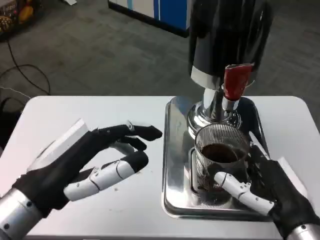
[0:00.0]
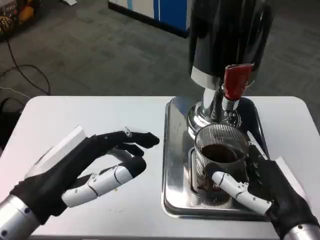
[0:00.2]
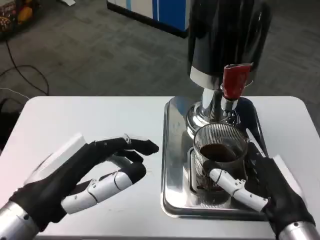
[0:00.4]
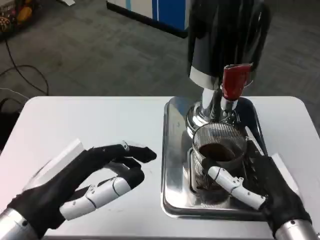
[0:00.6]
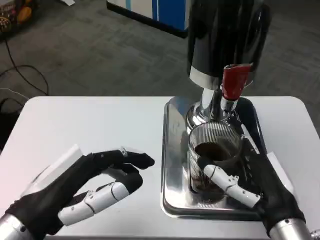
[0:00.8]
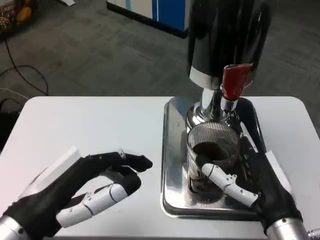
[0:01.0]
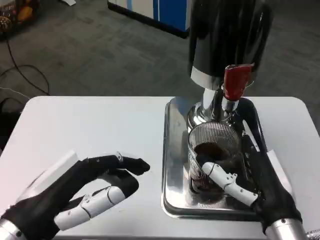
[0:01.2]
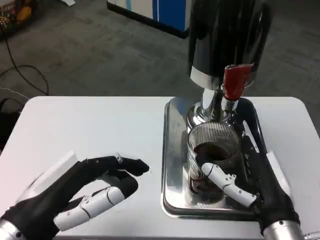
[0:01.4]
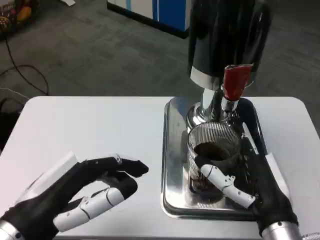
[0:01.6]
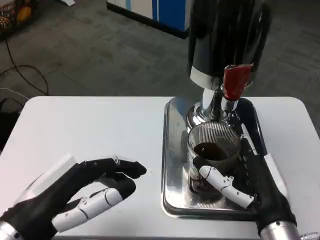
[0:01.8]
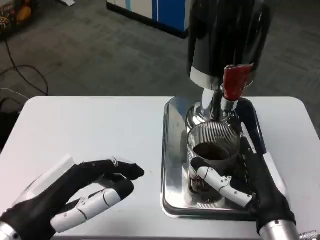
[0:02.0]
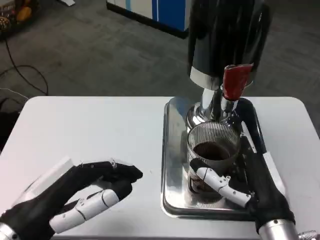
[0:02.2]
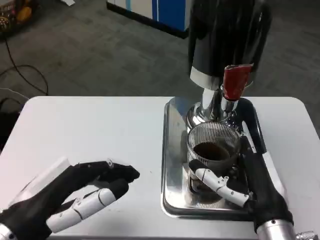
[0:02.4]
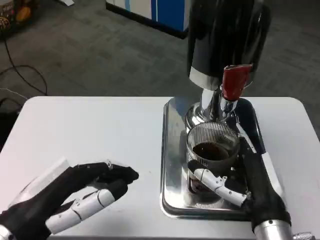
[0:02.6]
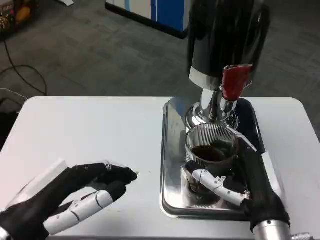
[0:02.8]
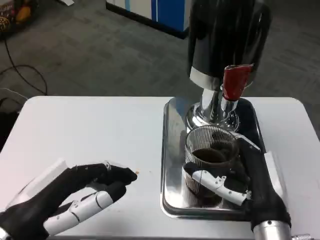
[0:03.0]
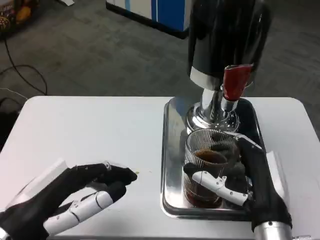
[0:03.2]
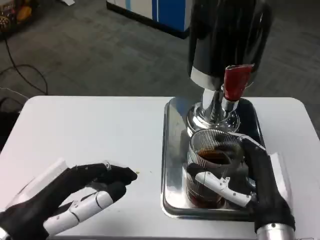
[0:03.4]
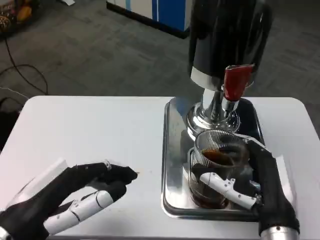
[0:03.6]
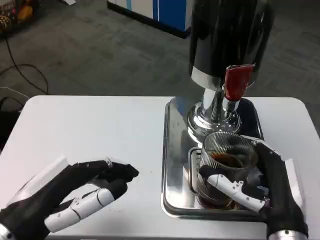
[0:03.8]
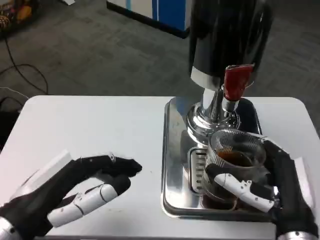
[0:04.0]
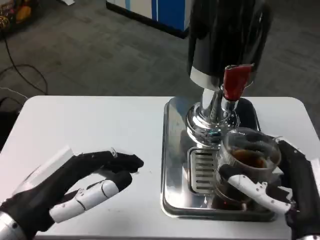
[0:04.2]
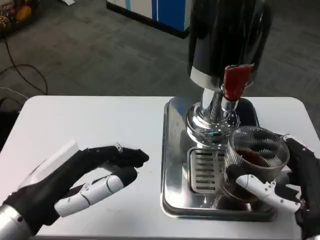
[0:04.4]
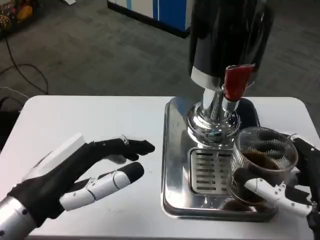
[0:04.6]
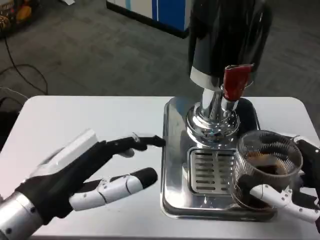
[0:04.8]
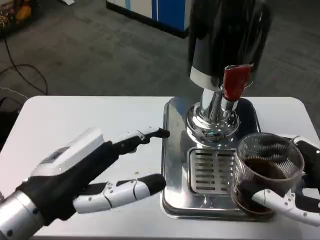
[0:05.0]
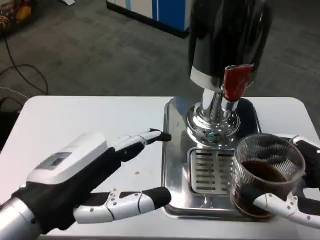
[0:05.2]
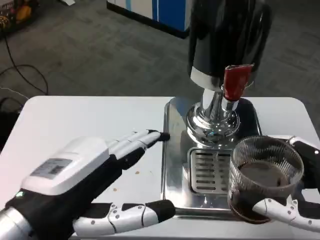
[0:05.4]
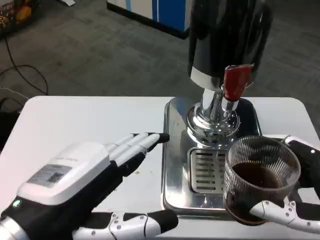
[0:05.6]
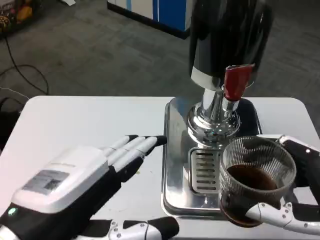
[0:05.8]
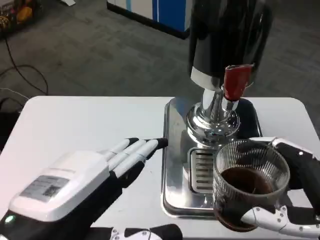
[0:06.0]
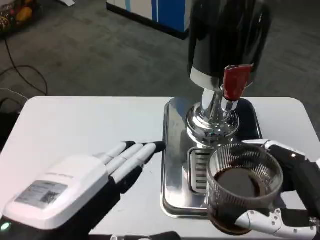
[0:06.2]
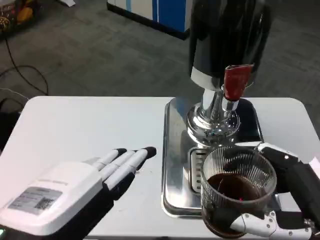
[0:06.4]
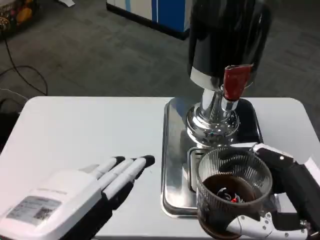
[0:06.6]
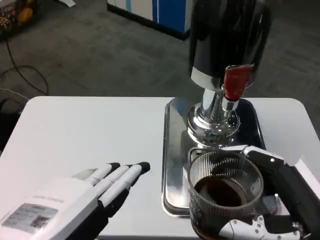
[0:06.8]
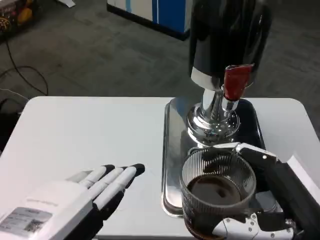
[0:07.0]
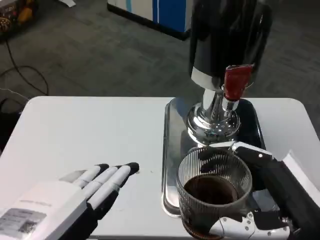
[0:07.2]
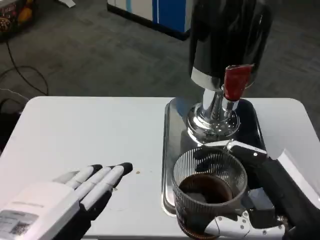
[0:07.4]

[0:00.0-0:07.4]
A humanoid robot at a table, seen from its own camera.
Task of the whole recording: Grasp the cup under the faucet to collect the drink, then remove the cup.
0:01.4 to 0:03.0: The hands make only small movements.
0:03.0 to 0:04.4: The right hand goes some 5 cm to the right.
0:04.4 to 0:06.0: The right hand shifts by roughly 5 cm; the left hand shifts about 10 cm backward and upward.

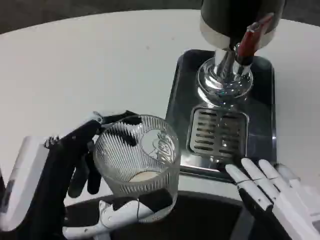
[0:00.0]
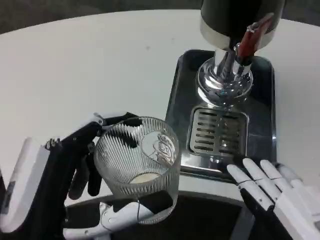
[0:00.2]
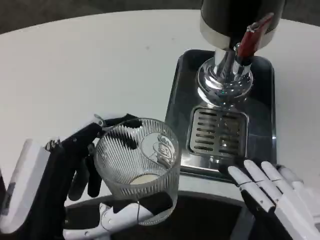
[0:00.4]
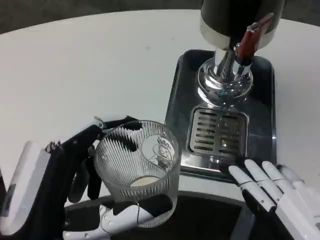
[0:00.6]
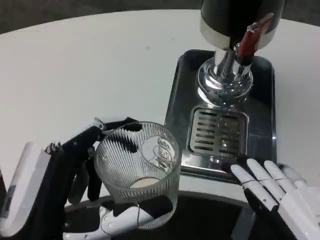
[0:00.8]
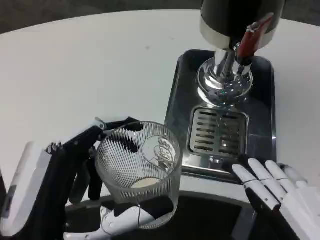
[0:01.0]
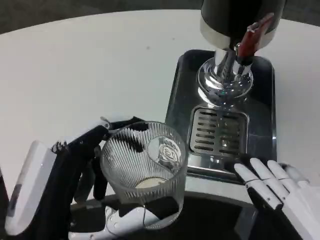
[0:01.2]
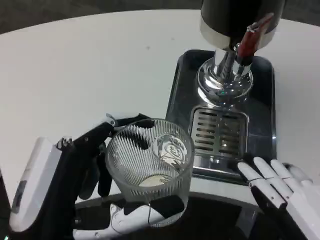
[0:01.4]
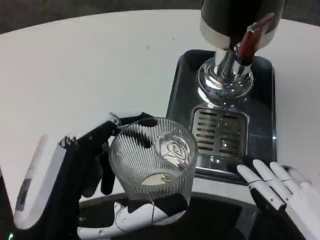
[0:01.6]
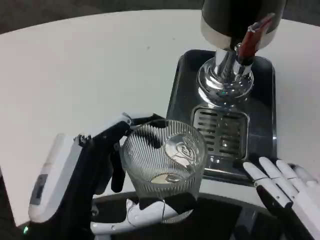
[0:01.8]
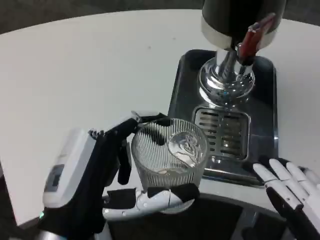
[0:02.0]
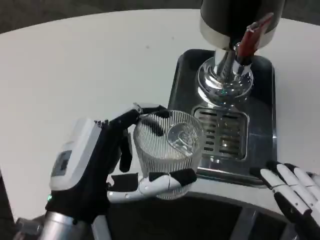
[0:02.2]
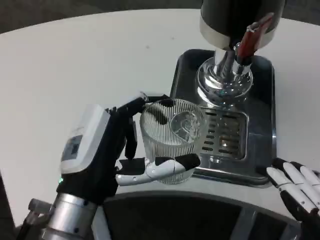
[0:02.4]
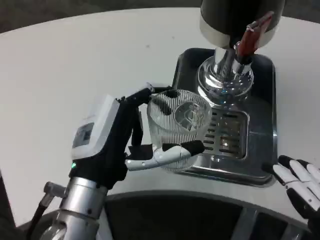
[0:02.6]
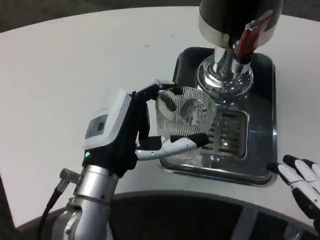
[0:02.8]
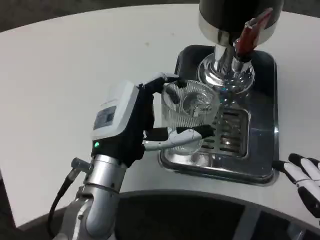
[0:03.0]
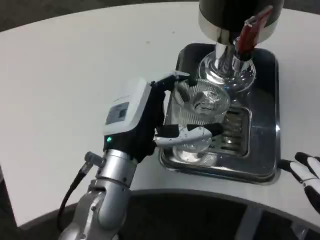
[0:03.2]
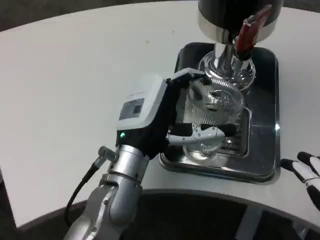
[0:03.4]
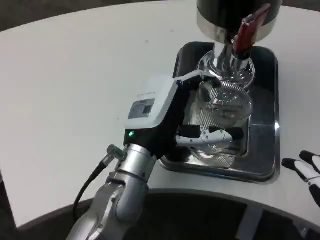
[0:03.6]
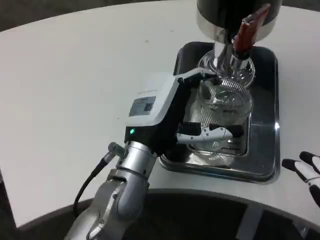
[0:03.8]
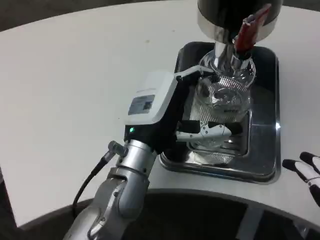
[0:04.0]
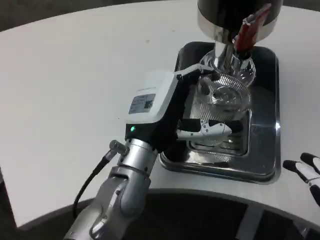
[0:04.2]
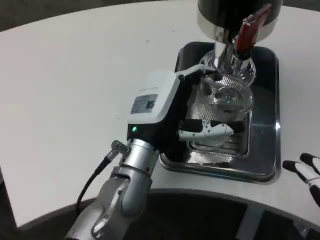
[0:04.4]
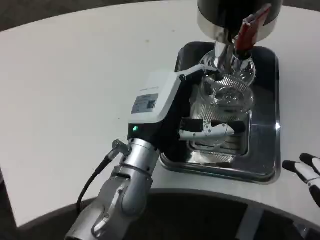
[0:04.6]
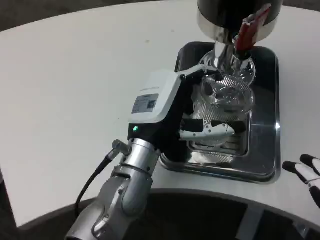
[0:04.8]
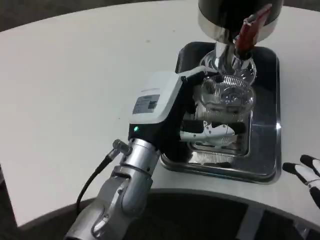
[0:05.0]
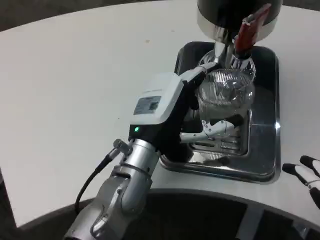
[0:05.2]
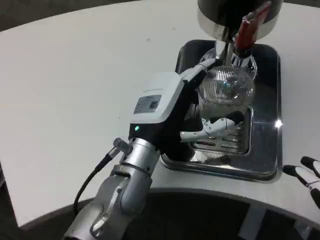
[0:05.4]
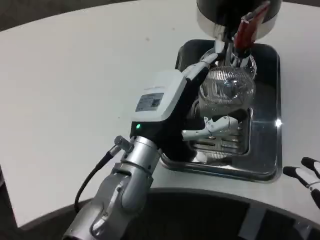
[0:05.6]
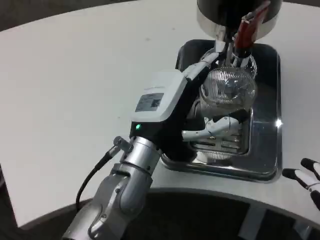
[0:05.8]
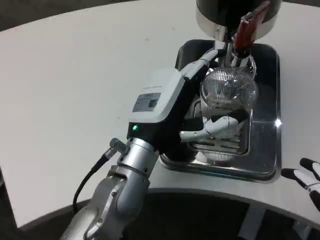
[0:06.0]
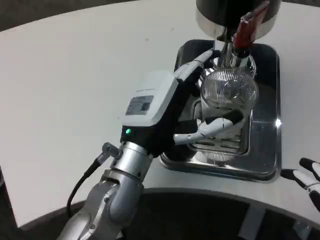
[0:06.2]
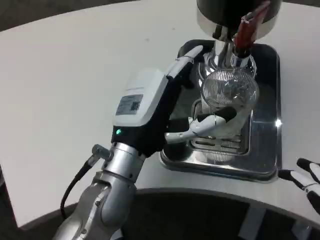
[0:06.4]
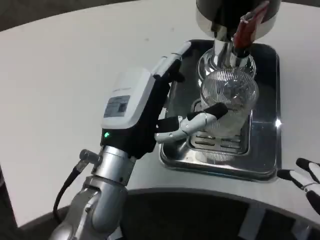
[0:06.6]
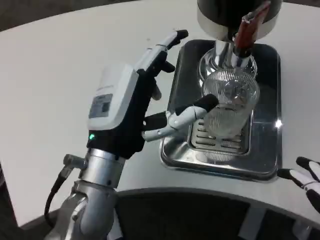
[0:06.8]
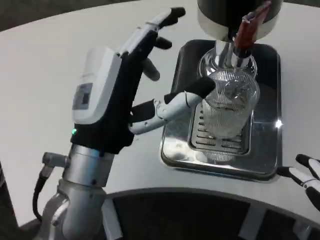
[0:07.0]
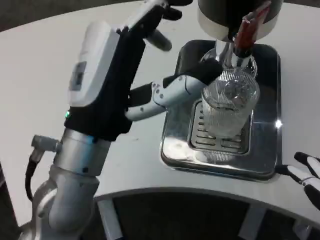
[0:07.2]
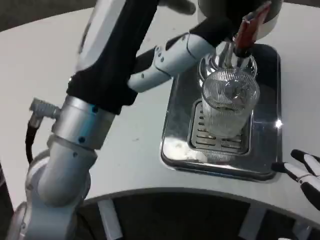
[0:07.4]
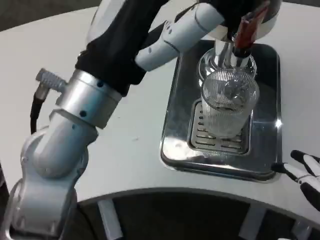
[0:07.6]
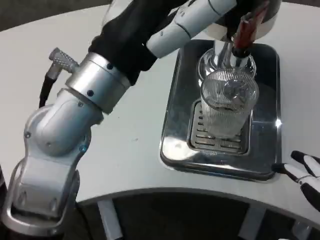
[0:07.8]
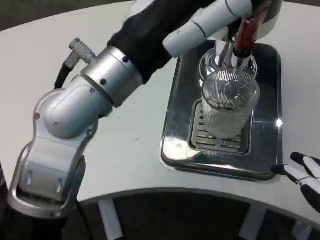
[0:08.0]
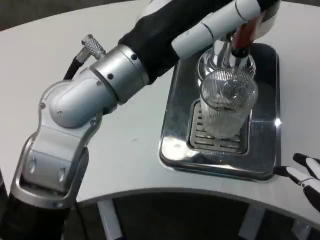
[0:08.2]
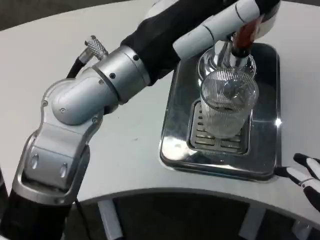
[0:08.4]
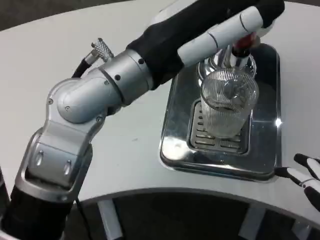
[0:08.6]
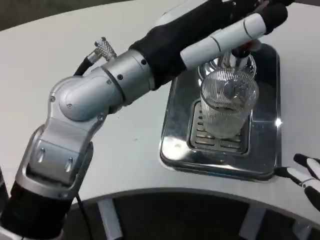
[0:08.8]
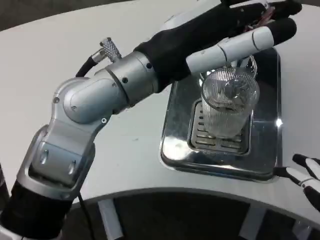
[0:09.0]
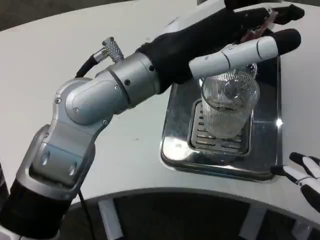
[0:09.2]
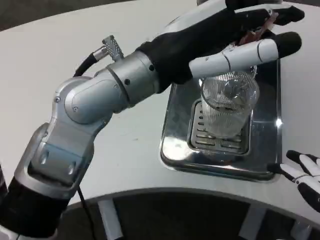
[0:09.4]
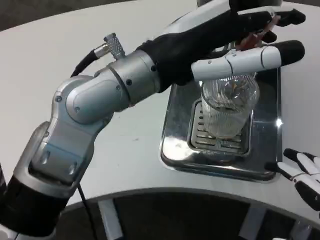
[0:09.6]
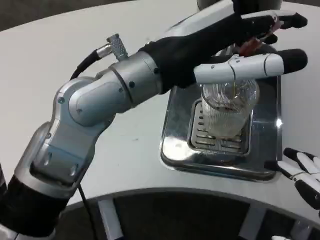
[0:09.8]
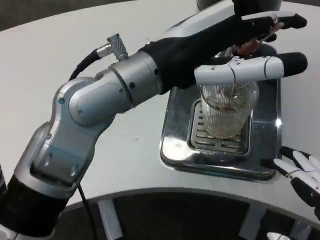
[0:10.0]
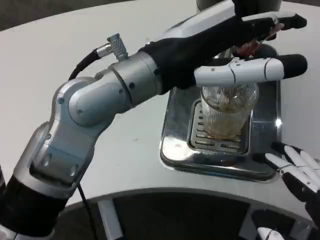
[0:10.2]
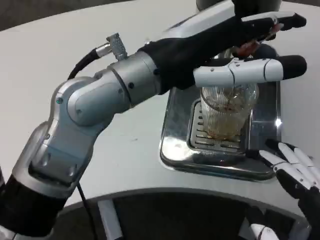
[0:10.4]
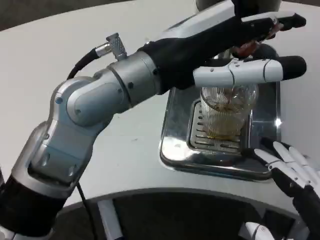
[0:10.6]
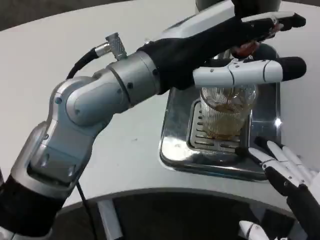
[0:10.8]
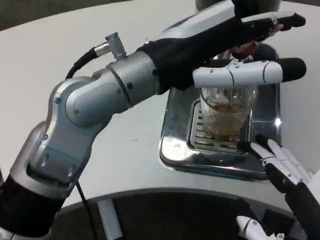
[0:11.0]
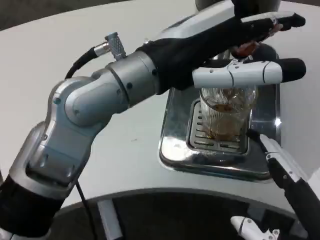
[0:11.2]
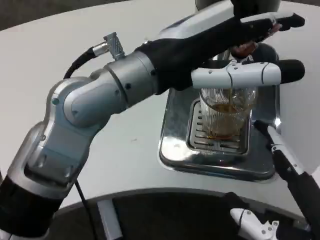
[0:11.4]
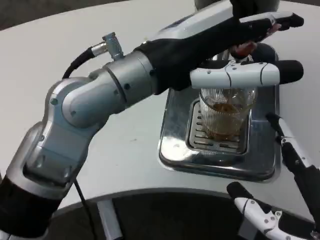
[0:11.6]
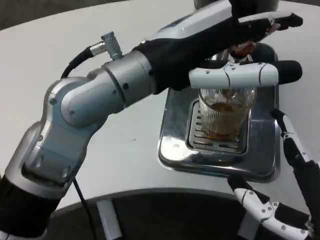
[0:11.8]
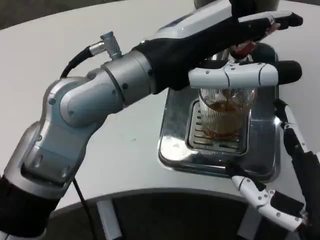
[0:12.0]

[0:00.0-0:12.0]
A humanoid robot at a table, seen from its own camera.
Task of the whole recording: Grasp the cup under the faucet to collect the drink, then remove the cup.
0:01.6 to 0:03.0: The left hand heads forward, covering roughly 15 cm.
0:04.4 to 0:06.0: Both hands stay put.
0:06.0 to 0:07.6: The left hand travels upward and backward by about 15 cm.
0:10.4 to 0:12.0: The right hand moves forward, approximately 5 cm.

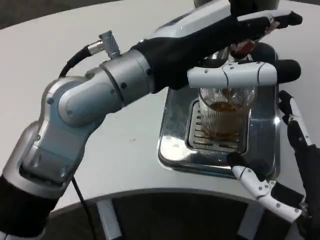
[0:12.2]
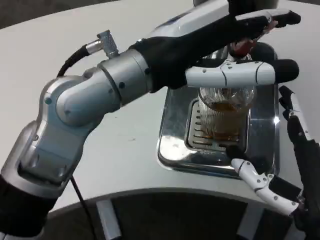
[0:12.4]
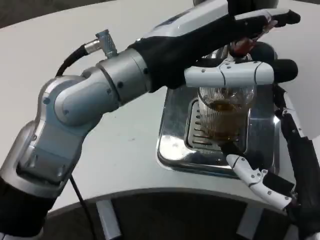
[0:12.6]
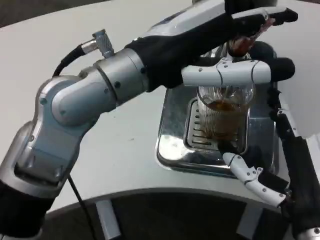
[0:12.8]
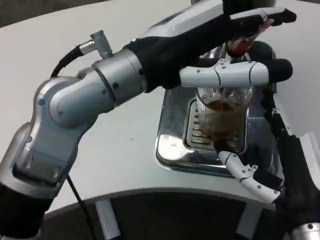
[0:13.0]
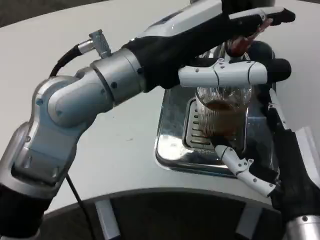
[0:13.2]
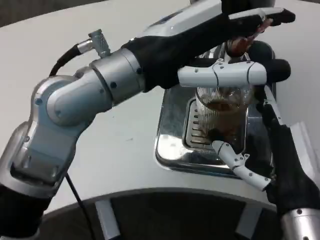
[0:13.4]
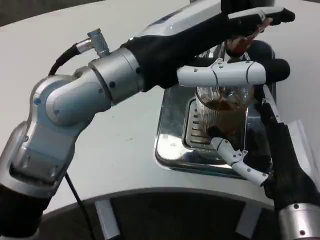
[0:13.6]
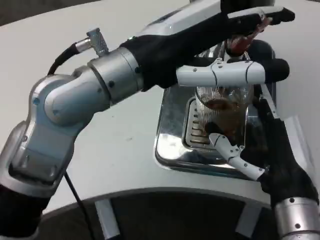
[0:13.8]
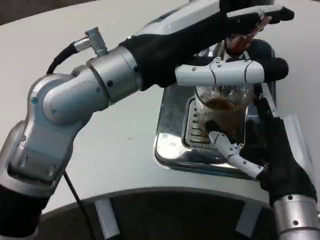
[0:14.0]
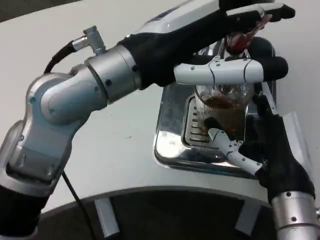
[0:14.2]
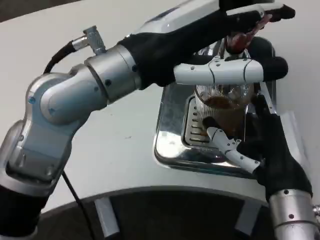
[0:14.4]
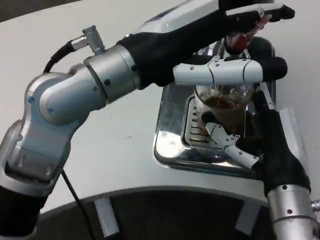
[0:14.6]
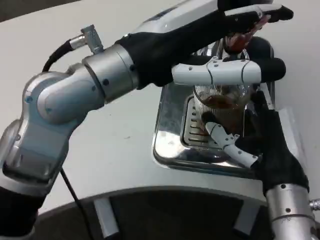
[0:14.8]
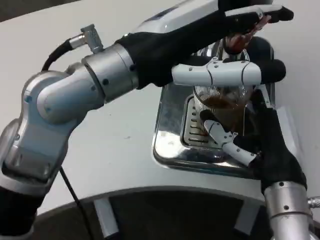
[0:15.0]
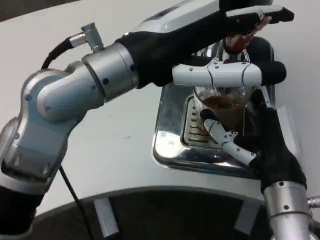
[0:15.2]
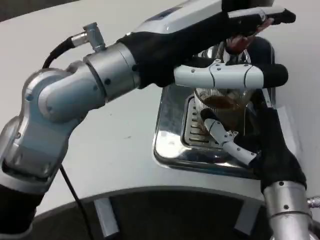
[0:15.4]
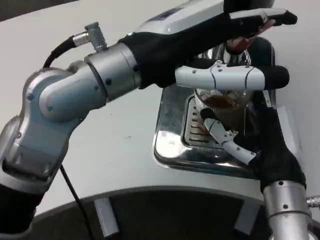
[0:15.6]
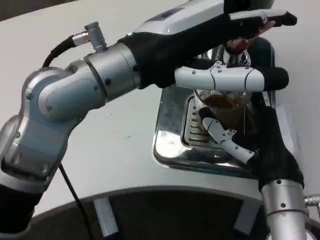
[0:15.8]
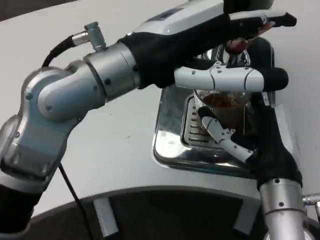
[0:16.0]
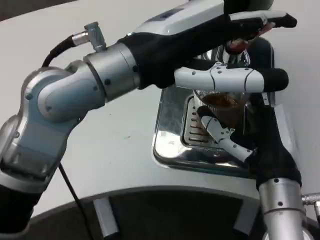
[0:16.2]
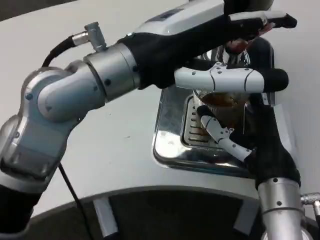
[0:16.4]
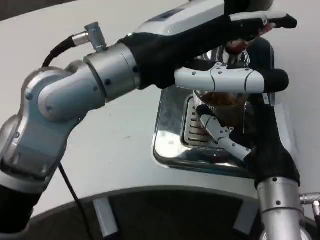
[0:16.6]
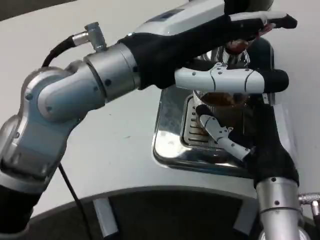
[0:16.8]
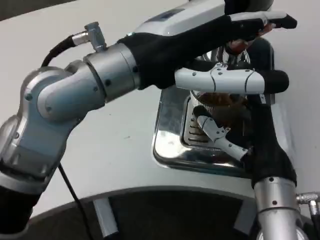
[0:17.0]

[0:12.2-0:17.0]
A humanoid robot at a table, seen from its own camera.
Task of the whole recording: Grasp the cup under the faucet to collect the drink, then remove the cup.
0:12.2 to 0:13.8: The right hand moves forward, approximately 5 cm.
0:15.4 to 0:17.0: Neither hand changes place.
